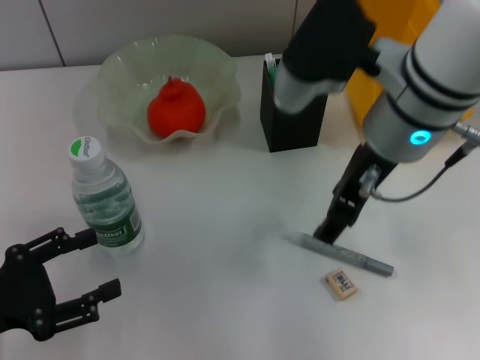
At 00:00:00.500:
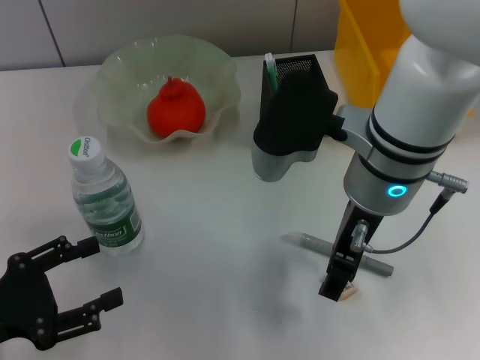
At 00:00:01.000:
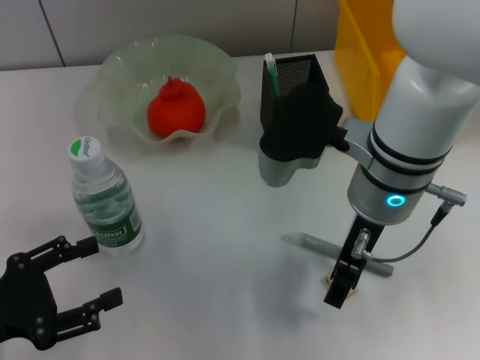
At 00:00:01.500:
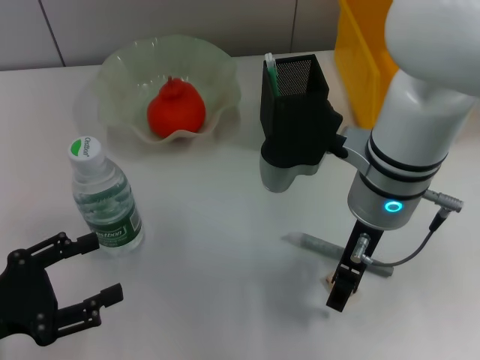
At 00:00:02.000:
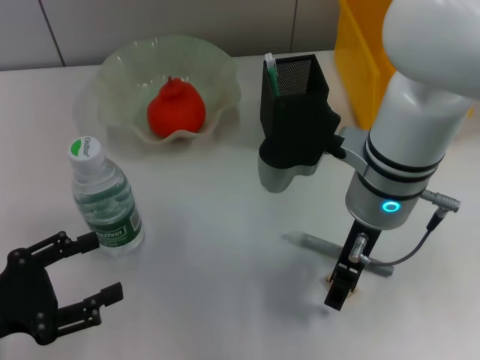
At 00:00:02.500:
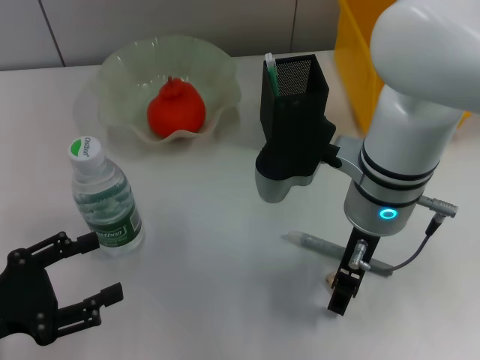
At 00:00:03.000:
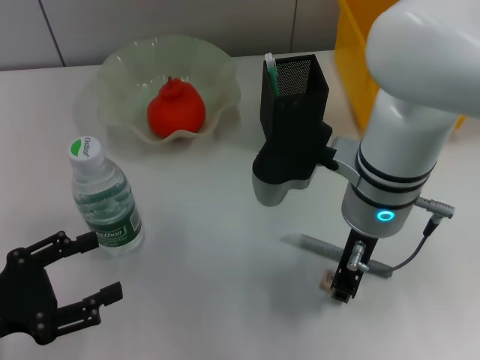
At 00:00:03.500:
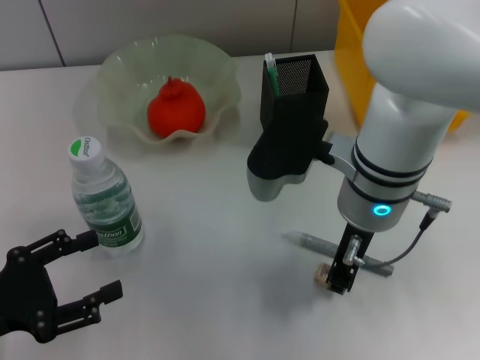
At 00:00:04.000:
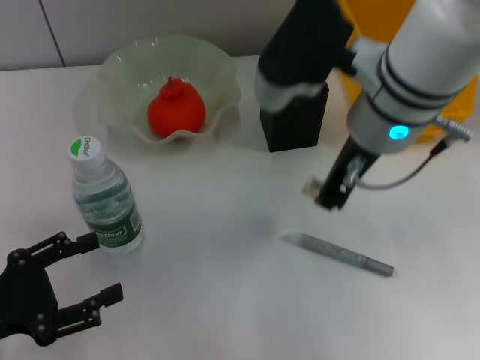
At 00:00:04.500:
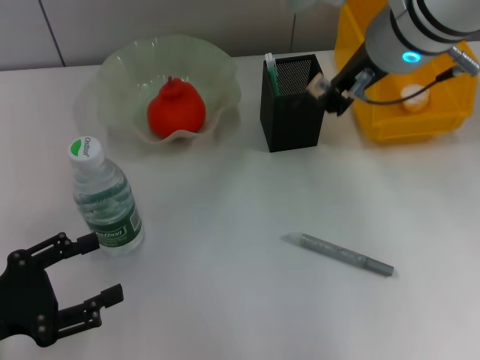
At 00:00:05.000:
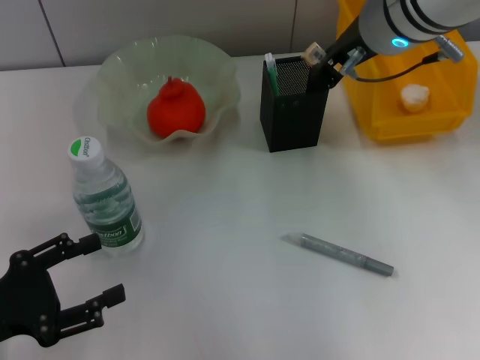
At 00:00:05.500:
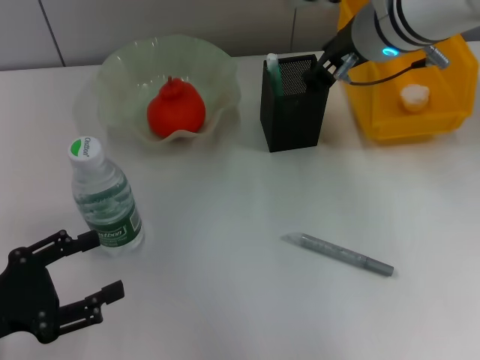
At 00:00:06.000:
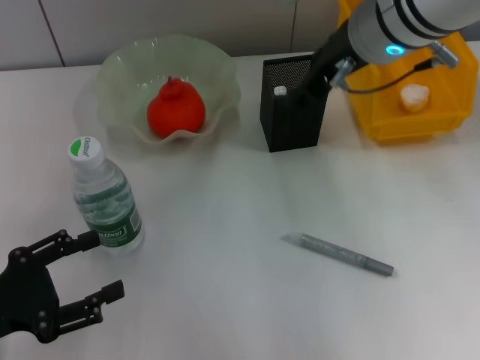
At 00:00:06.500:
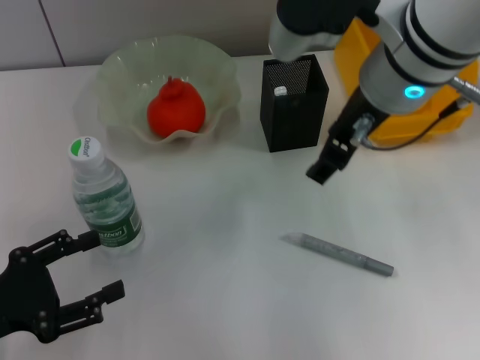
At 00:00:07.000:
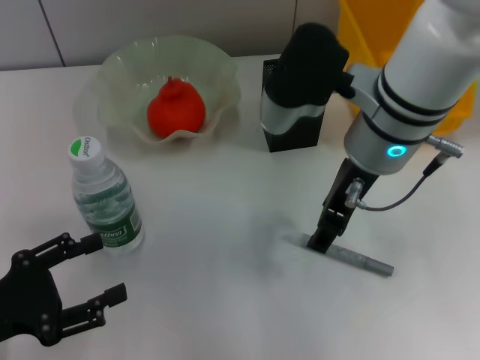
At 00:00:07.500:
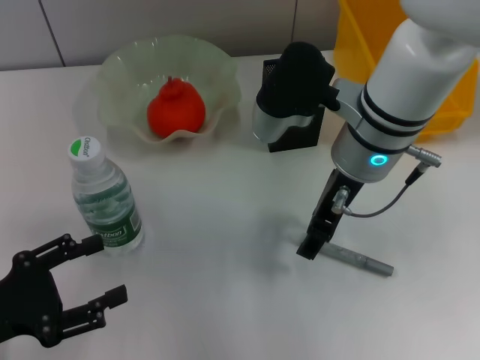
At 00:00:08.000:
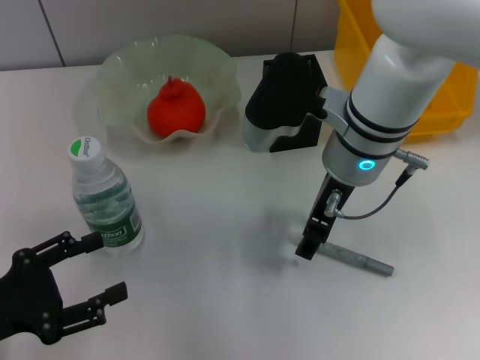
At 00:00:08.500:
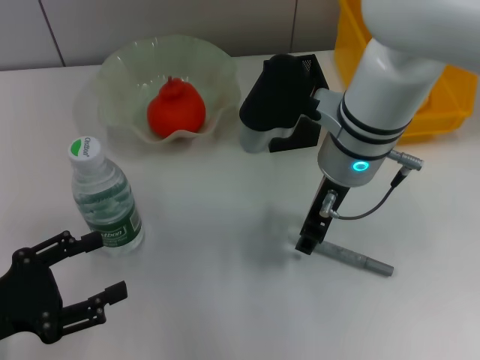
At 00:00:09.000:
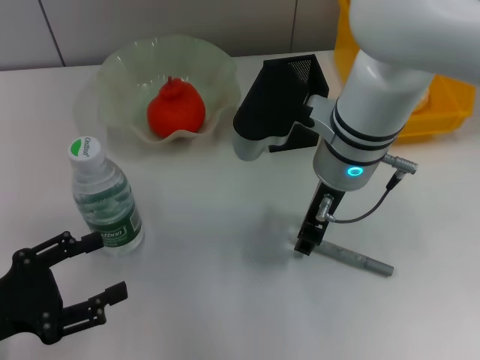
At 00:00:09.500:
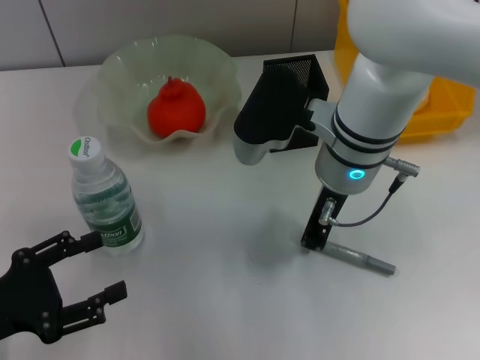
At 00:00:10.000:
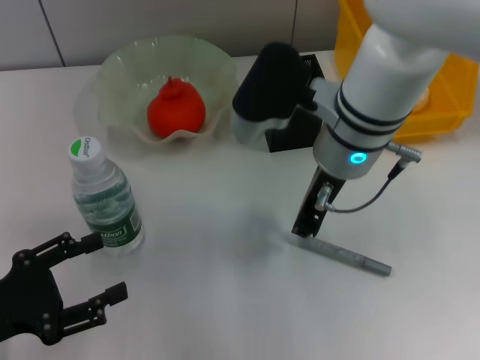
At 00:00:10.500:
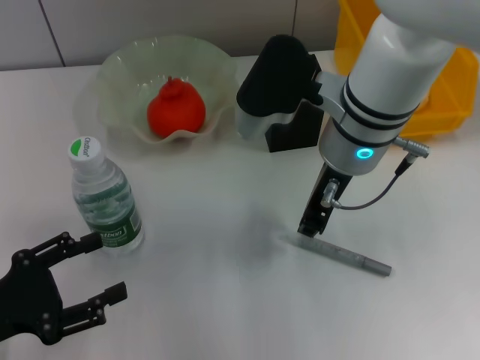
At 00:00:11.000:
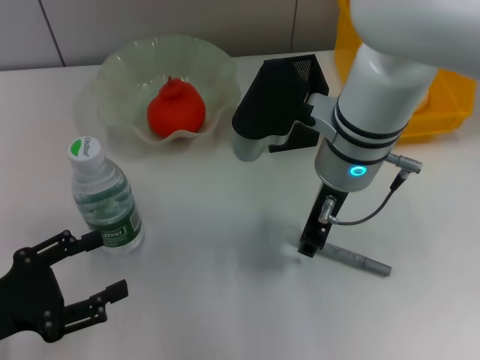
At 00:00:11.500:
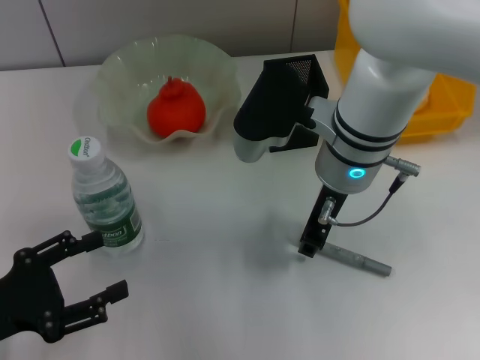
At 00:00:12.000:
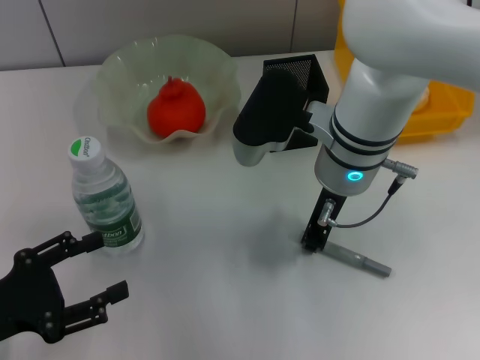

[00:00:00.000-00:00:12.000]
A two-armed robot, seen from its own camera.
Step, 00:00:00.000 to 00:00:03.000: Grab the eraser with the right hand.
Step, 00:00:03.500 to 00:00:05.500: Put the eraser into the pen holder with the right hand.
Step, 00:00:06.000 to 00:00:11.500: Grab the gray glue with the right hand.
00:00:00.000 to 00:00:02.000: The right gripper heads downward, covering some 5 cm.
00:00:02.000 to 00:00:04.000: The right gripper goes about 5 cm upward, and closes up.
00:00:04.000 to 00:00:06.000: The right gripper opens up.
00:00:06.000 to 00:00:08.000: The right gripper moves downward, some 10 cm.
00:00:08.000 to 00:00:10.000: The right gripper closes its fingers.
00:00:10.000 to 00:00:12.000: There are only small adjustments of the grippers.

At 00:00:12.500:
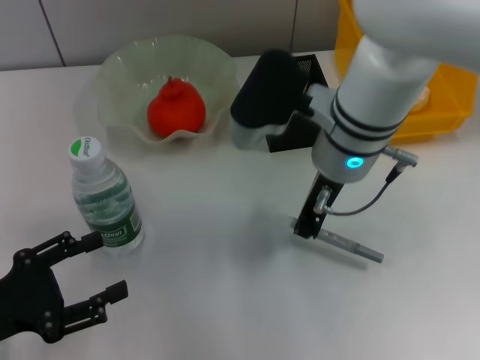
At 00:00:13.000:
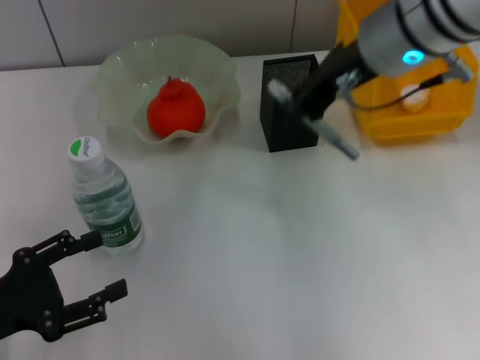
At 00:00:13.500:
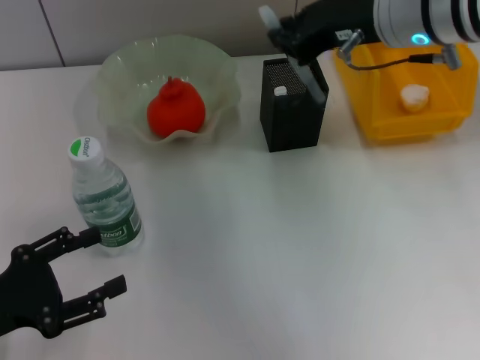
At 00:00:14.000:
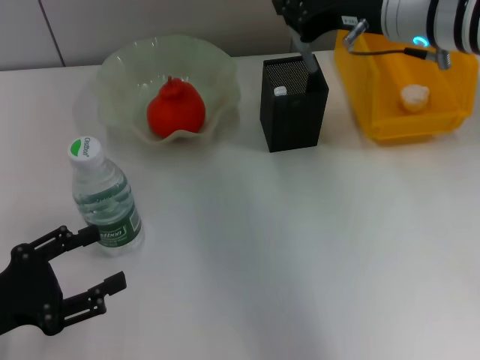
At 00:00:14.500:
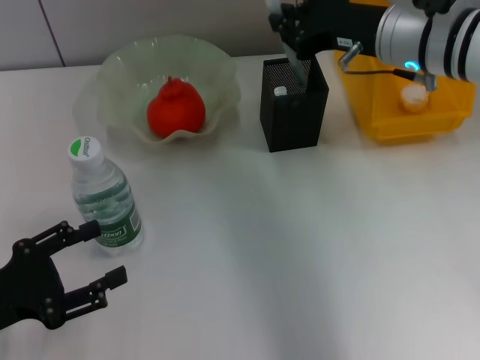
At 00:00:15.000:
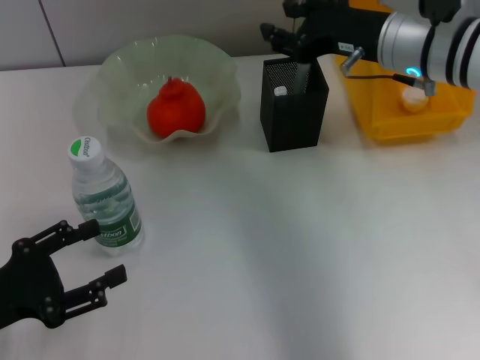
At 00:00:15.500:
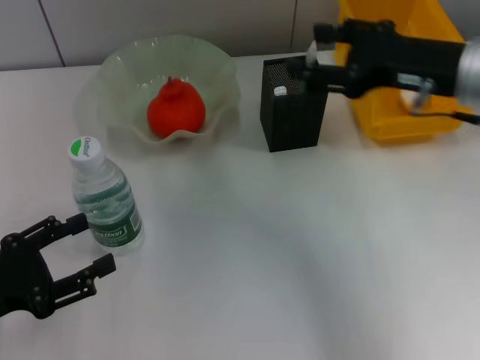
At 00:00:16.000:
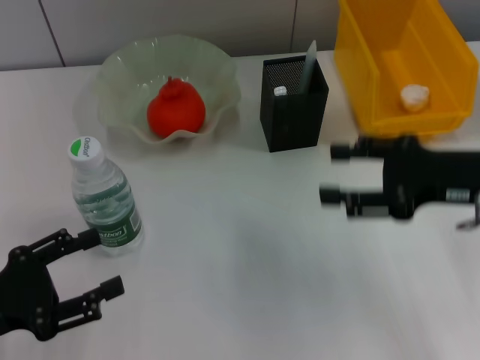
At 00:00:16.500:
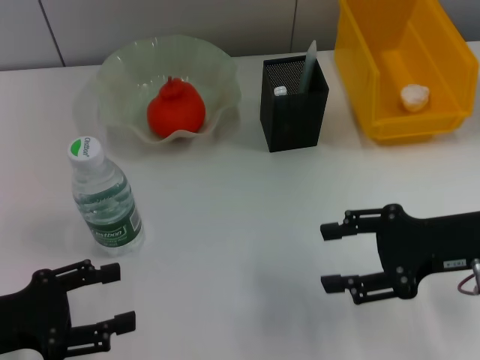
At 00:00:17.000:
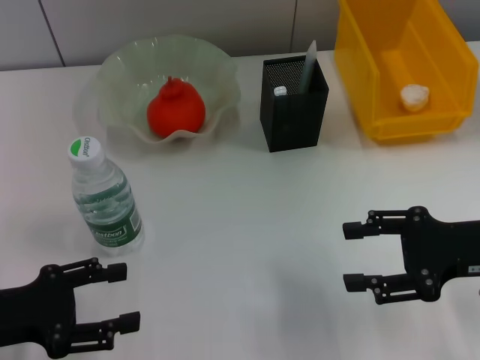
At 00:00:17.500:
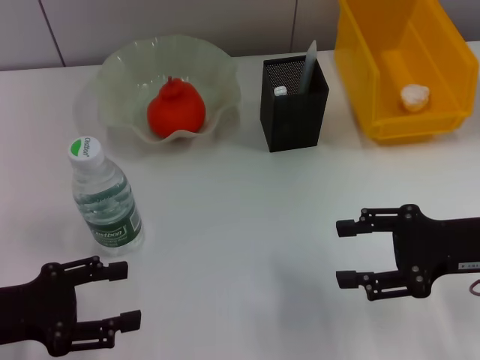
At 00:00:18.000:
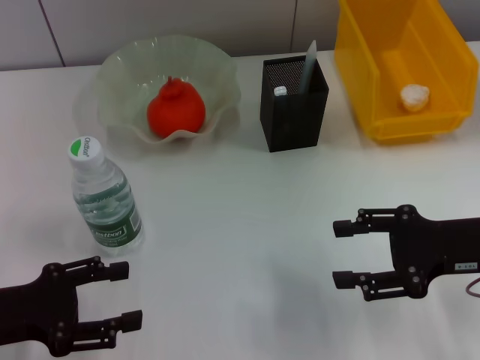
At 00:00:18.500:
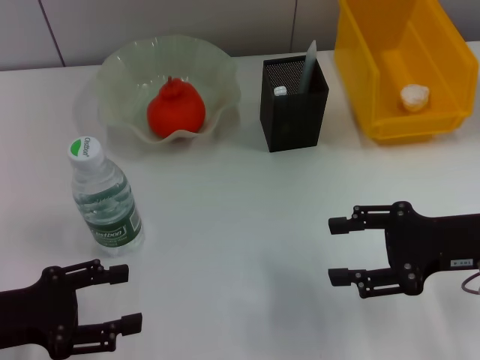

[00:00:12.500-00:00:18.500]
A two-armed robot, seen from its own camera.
Step, 00:00:12.500 to 00:00:14.500: Place the gray glue into the pen holder with the right hand.
00:00:12.500 to 00:00:14.500: The right gripper goes roughly 10 cm to the right, and goes upward and returns, roughly 10 cm each way.
00:00:14.500 to 00:00:16.500: The right gripper goes some 20 cm backward, to the right and downward, and opens its fingers.
00:00:16.500 to 00:00:18.500: The grippers move only a little.
